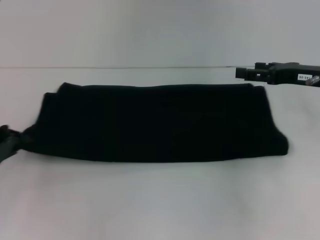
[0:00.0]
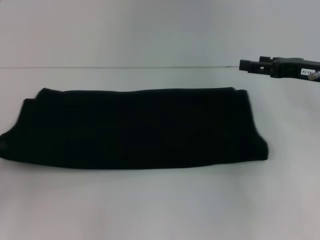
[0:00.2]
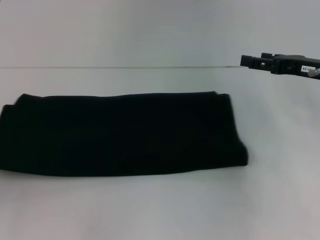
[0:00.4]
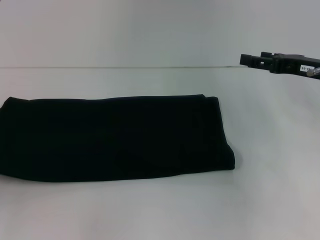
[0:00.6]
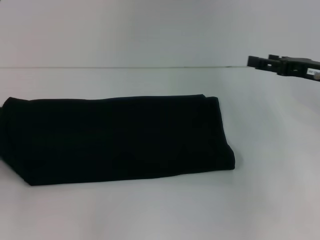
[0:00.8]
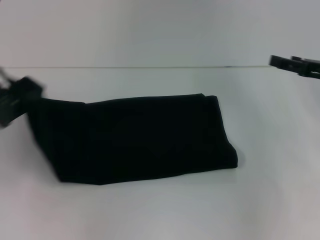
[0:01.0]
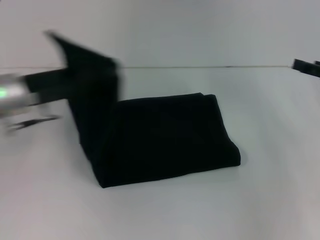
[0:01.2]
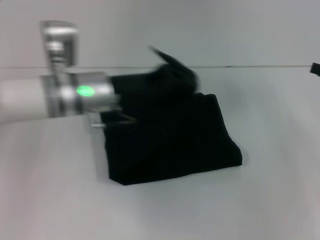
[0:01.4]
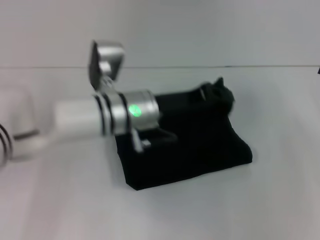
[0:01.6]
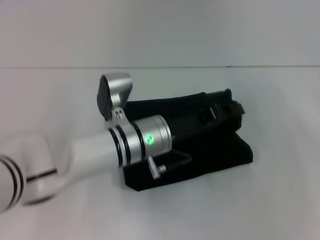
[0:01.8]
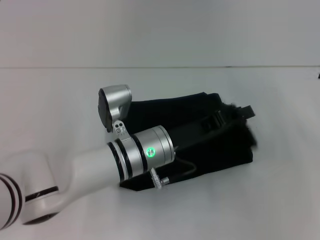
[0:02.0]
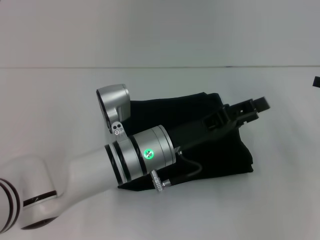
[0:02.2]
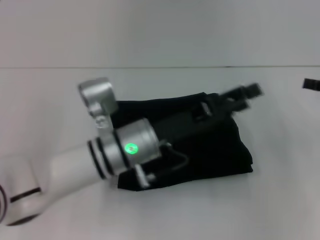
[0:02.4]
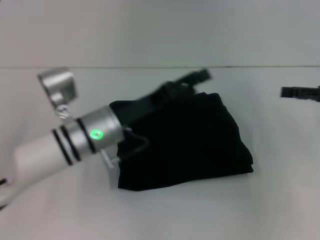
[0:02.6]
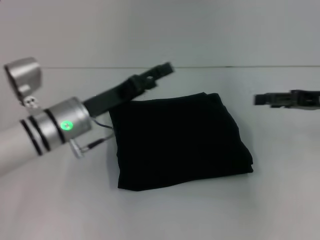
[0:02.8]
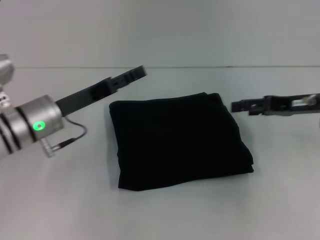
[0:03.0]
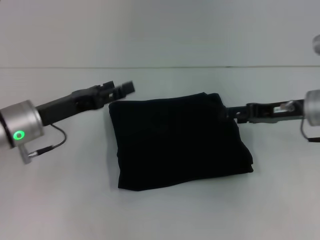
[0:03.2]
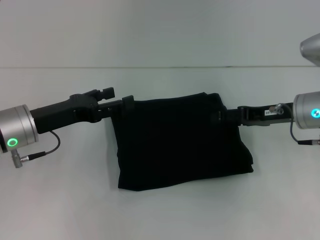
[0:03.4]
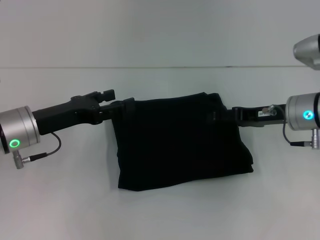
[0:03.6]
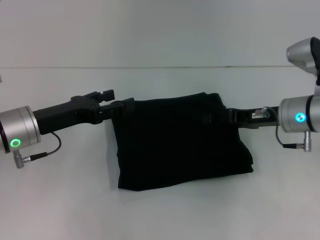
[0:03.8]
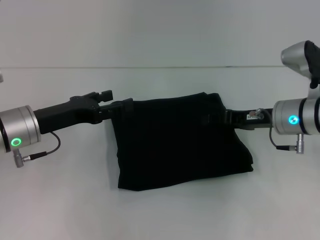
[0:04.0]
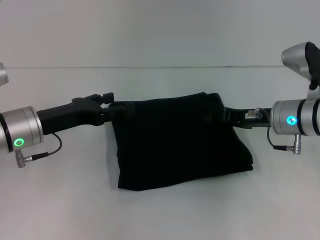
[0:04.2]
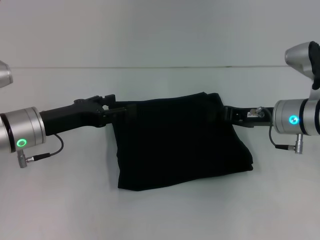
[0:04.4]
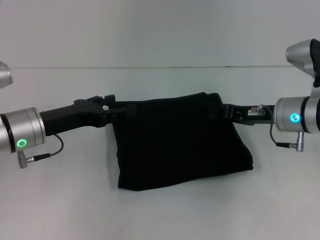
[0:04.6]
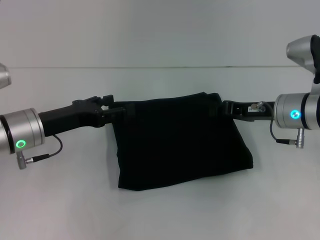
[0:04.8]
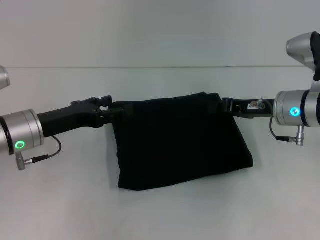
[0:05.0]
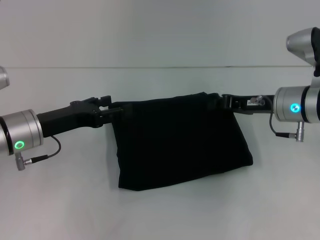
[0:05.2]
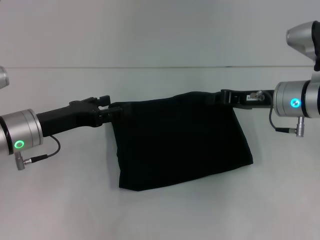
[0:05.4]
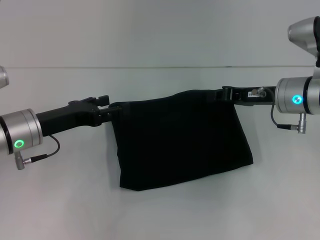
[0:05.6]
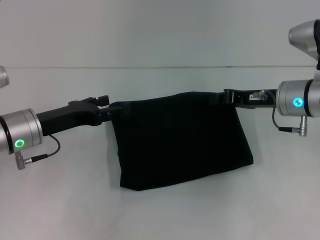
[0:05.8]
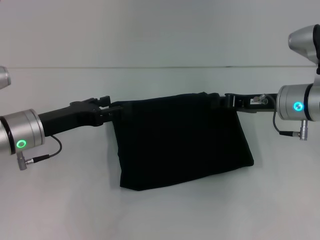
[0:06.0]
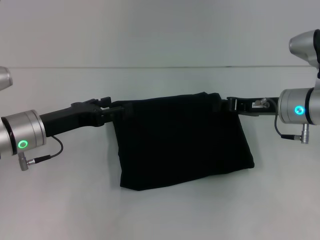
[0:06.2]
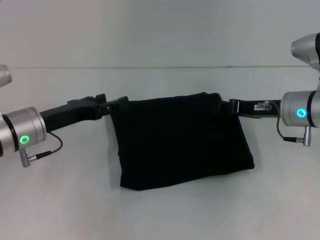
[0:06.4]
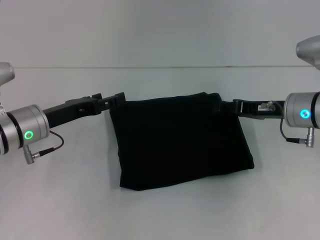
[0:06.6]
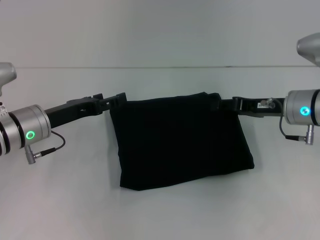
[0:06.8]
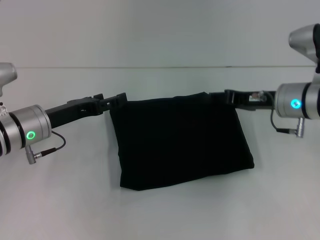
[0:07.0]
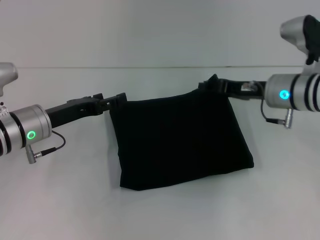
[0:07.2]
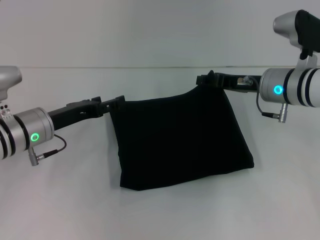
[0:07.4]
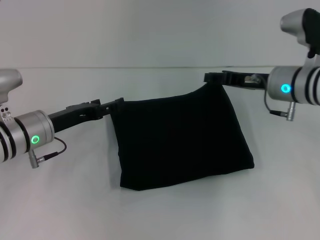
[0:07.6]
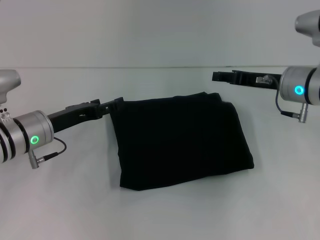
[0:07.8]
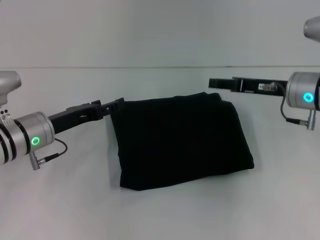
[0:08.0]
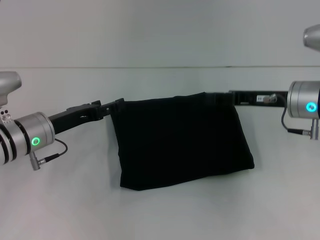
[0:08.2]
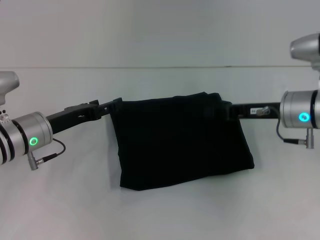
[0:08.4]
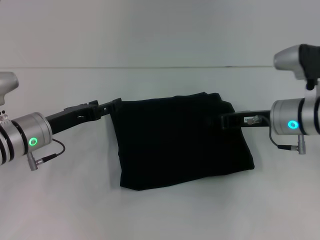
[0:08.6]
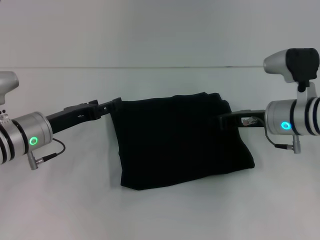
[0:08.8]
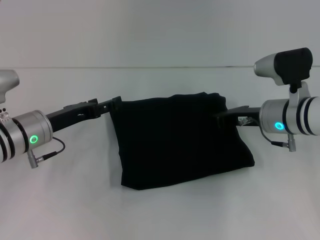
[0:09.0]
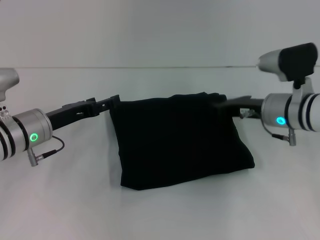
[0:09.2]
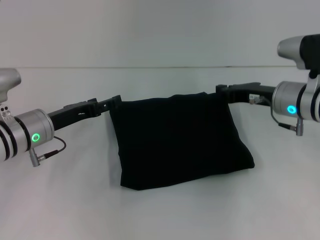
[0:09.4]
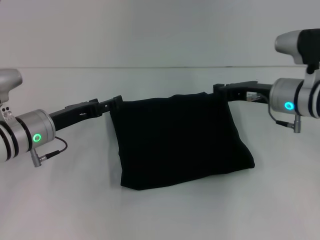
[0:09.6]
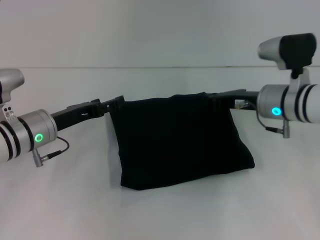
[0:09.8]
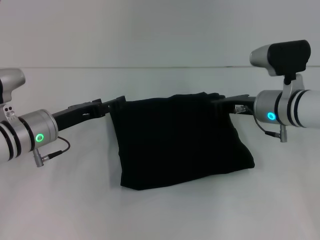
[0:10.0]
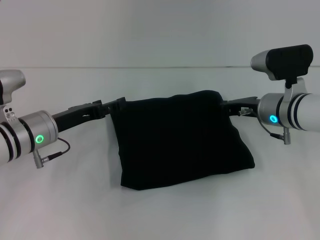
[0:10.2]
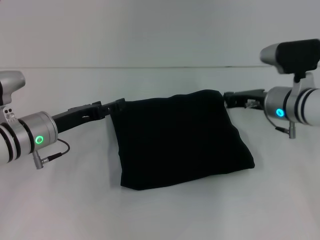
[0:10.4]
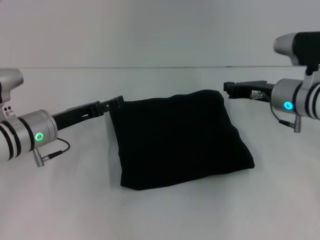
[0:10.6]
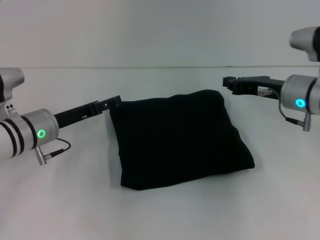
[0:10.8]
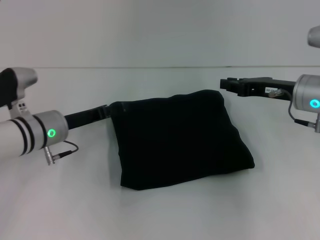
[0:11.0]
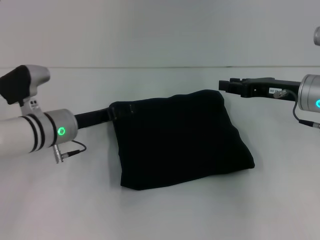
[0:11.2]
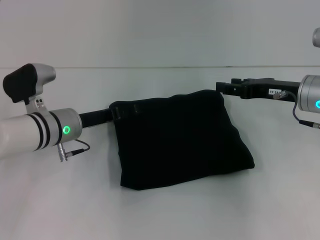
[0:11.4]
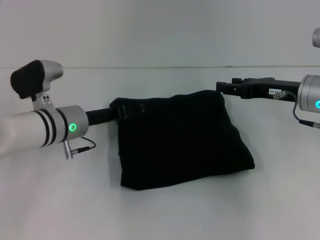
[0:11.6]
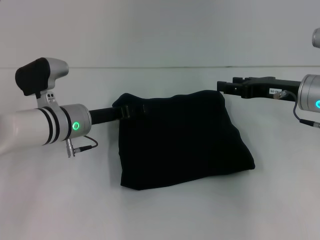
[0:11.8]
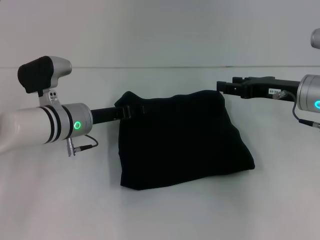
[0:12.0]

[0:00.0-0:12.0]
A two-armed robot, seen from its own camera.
Step, 0:00.0 to 0:03.4: Fold the clothes with your left hand.
0:00.0 to 0:01.6: The right gripper heads to the right, covering approximately 10 cm. Meanwhile the left gripper moves to the right, roughly 30 cm.
0:01.6 to 0:03.0: The grippers both shift to the left by some 10 cm. The left gripper opens.
0:03.0 to 0:04.4: The right gripper heads to the left, covering some 5 cm, and closes.
0:04.4 to 0:06.0: The grippers stay close to where they were, moving slightly.
0:06.0 to 0:07.6: The right gripper opens its fingers.
0:07.6 to 0:09.0: The right gripper closes its fingers.
0:09.0 to 0:10.4: The grippers move only a little.
0:10.4 to 0:12.0: The left gripper travels to the right by about 5 cm. Meanwhile the right gripper shifts by some 5 cm, and opens up.

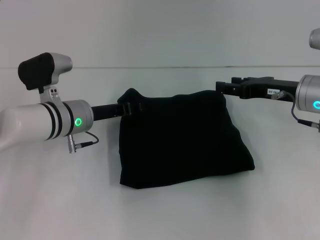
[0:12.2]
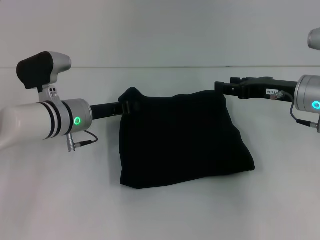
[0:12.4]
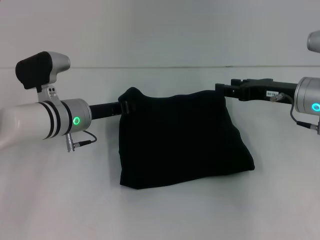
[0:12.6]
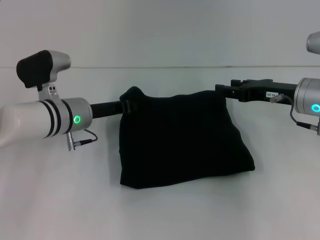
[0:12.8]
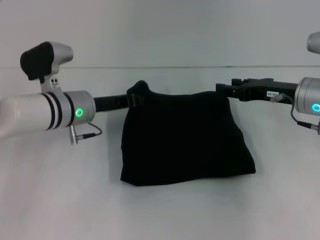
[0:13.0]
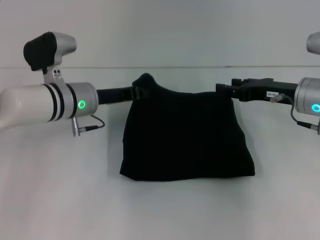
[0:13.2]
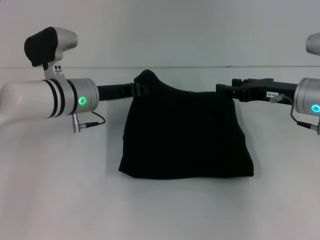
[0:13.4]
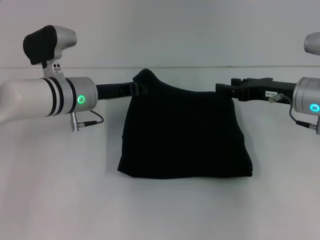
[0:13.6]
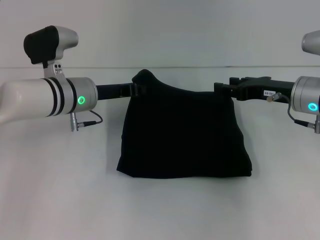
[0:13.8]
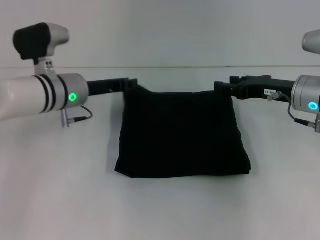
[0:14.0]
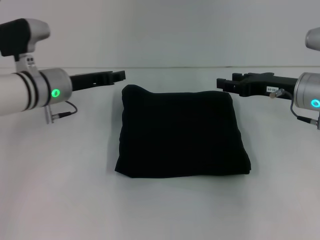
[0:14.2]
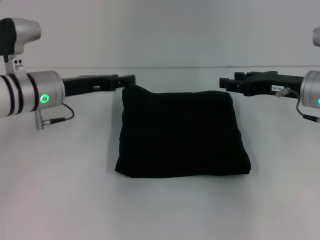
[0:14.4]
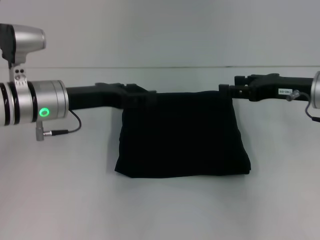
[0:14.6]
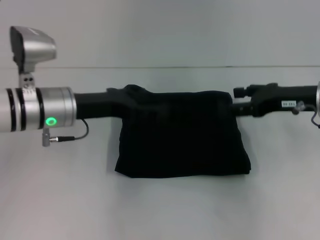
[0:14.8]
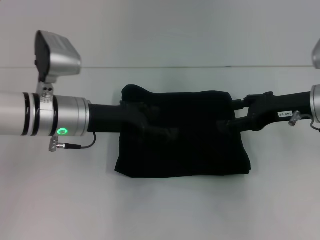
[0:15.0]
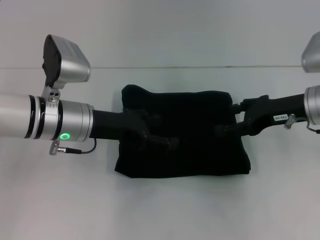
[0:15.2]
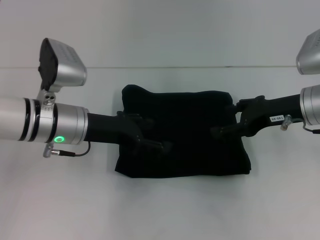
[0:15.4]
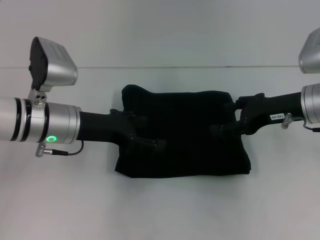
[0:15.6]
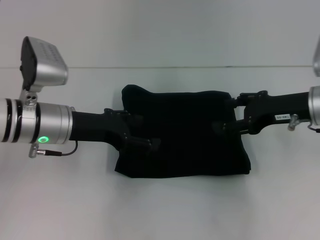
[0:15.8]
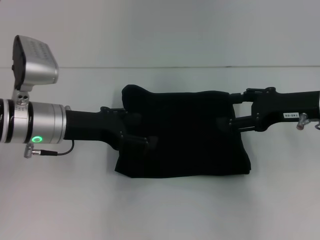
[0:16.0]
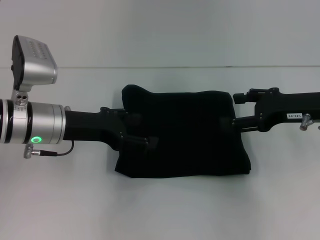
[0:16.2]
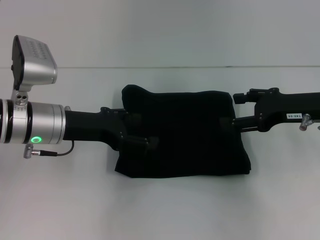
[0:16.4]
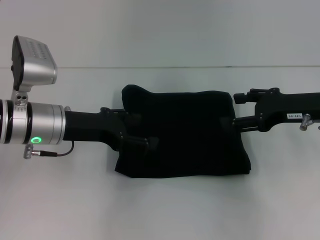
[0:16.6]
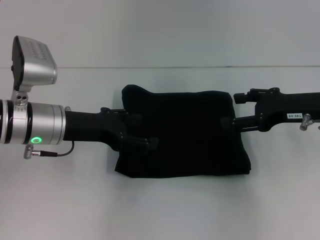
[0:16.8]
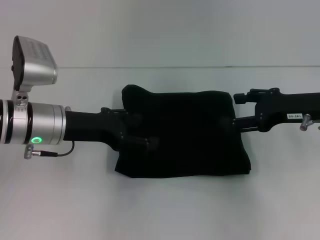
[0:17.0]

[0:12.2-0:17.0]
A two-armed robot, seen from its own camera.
0:12.2 to 0:13.8: The left gripper closes up.
0:13.8 to 0:15.4: The left gripper moves backward, about 5 cm, and opens.
0:15.4 to 0:17.0: There are only small adjustments of the grippers.
